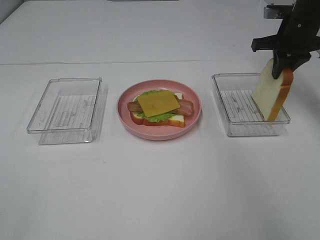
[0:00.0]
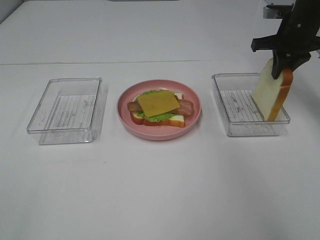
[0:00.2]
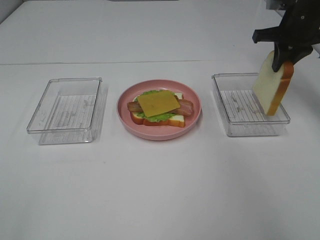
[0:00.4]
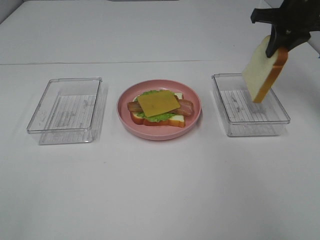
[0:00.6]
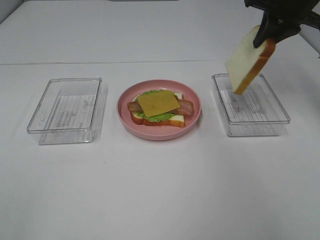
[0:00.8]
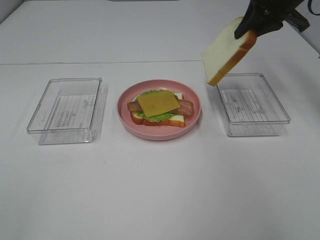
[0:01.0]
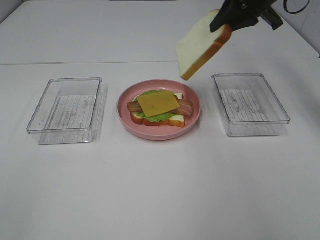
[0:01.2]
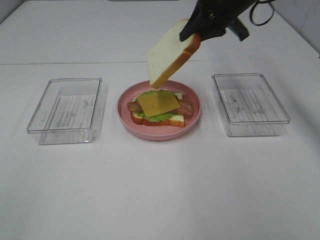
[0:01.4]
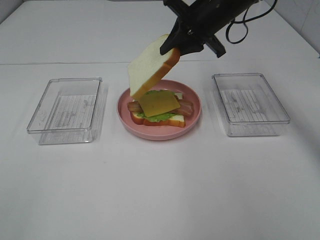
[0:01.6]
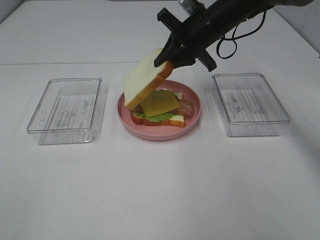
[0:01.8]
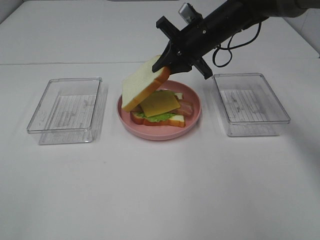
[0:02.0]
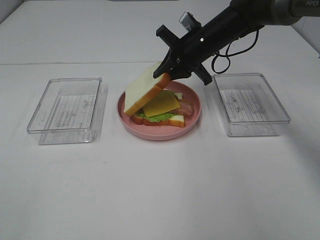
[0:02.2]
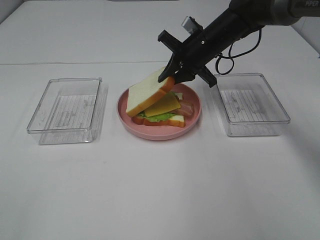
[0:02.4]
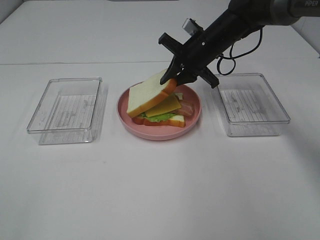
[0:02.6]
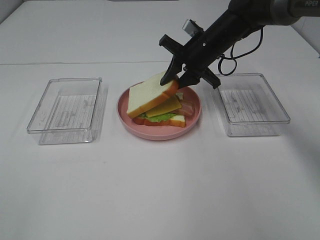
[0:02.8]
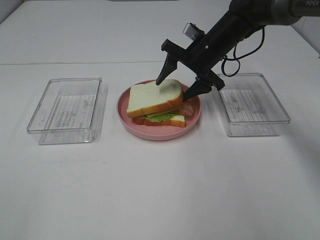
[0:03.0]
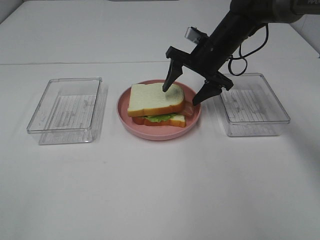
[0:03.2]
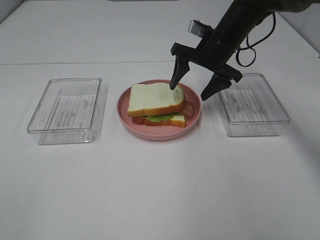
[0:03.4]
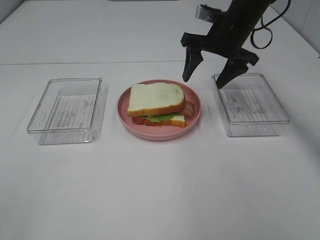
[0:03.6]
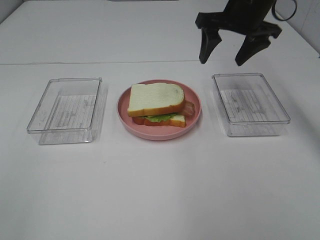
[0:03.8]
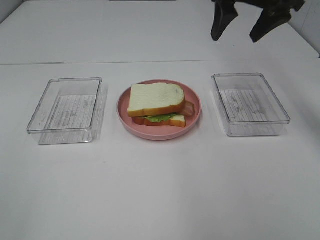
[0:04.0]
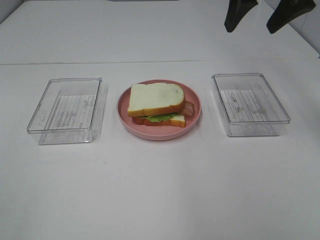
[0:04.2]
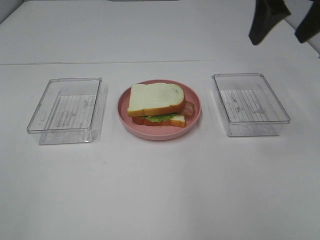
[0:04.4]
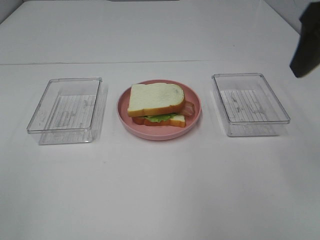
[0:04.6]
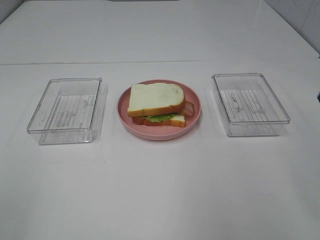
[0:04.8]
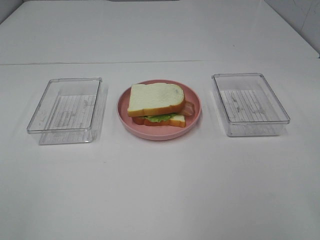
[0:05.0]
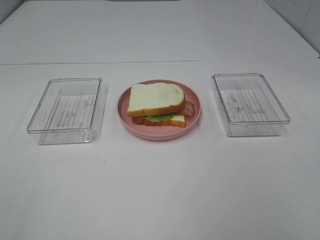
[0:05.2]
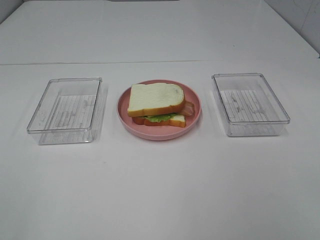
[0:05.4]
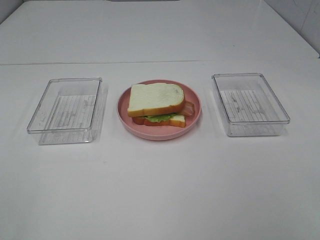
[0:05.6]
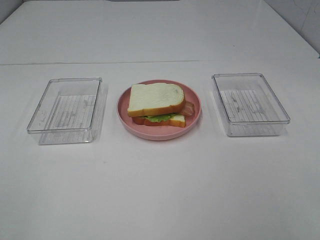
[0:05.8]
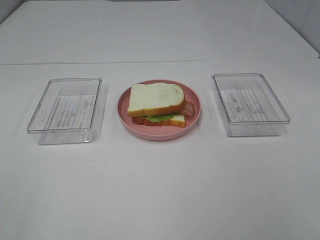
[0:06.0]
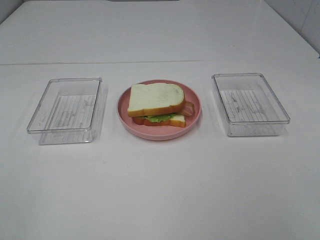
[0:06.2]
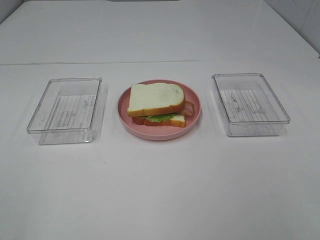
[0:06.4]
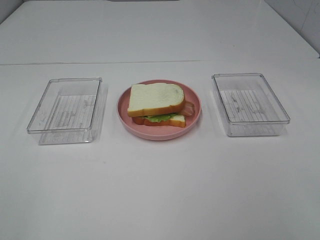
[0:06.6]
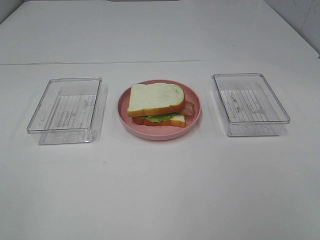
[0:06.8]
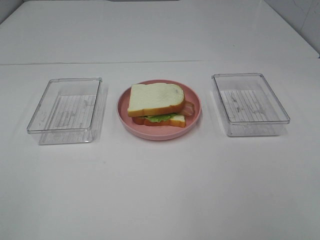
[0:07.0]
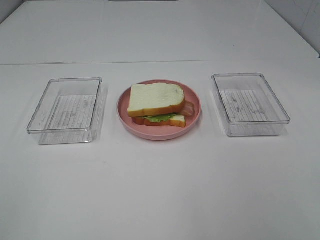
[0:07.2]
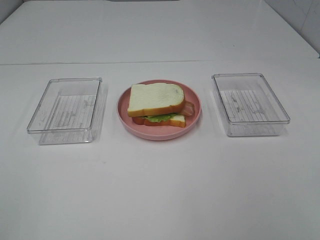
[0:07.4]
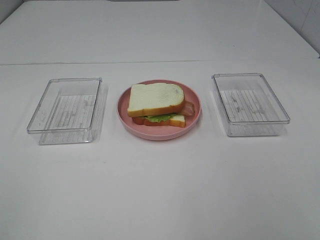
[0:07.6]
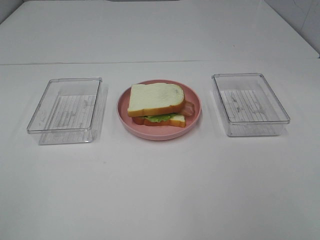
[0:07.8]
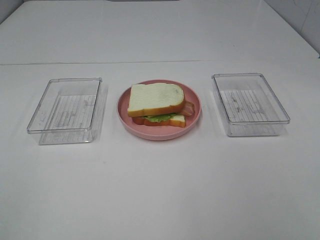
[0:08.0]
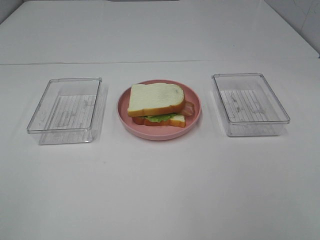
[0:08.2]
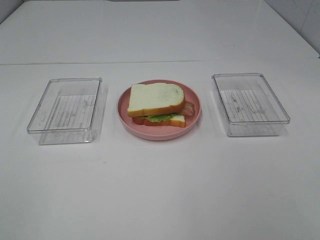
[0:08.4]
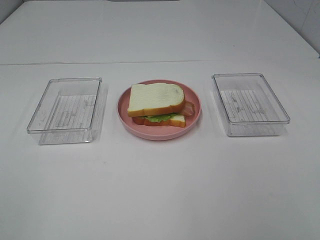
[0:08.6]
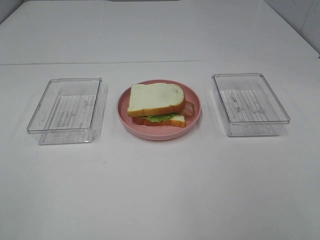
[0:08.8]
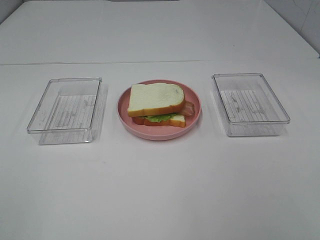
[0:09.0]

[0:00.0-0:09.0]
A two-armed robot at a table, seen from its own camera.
Task of the whole recording: Make sandwiches.
Step, 0:00.4 to 0:03.4: Right hand:place the bread slice on the cheese slice.
0:00.0 to 0:01.6: The right gripper heads to the left, covering roughly 15 cm.
0:01.6 to 0:03.0: The right gripper travels downward by approximately 10 cm, and opens its fingers.
0:03.0 to 0:04.4: The right gripper shifts roughly 25 cm upward, backward and to the right.
0:04.4 to 0:06.0: The right gripper shifts approximately 30 cm backward.
0:07.6 to 0:09.0: Both grippers stay about where they are.

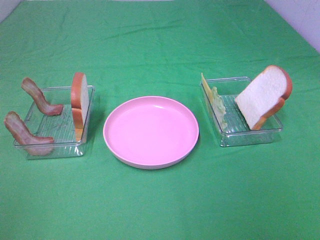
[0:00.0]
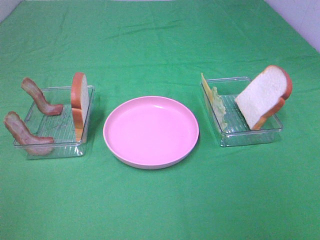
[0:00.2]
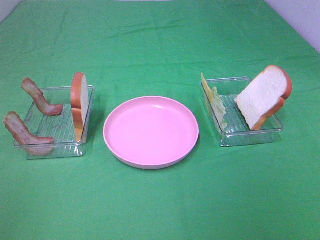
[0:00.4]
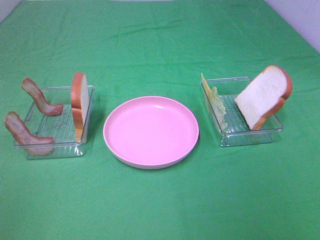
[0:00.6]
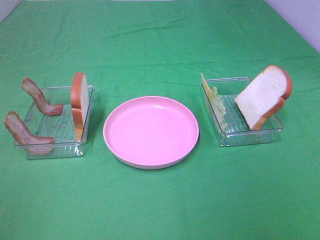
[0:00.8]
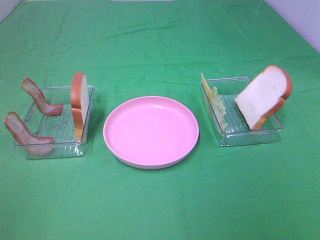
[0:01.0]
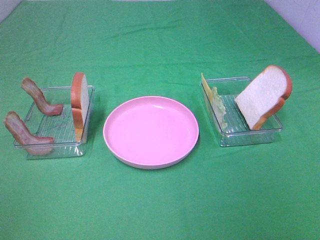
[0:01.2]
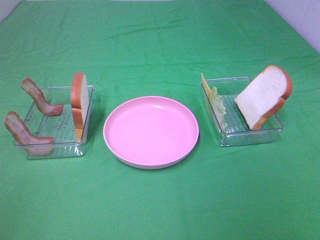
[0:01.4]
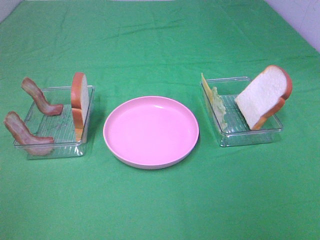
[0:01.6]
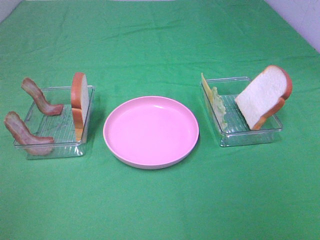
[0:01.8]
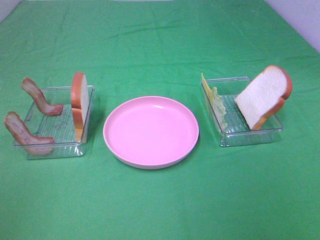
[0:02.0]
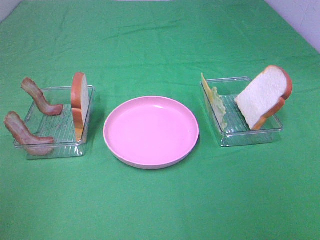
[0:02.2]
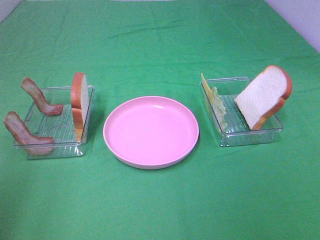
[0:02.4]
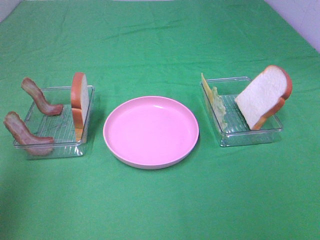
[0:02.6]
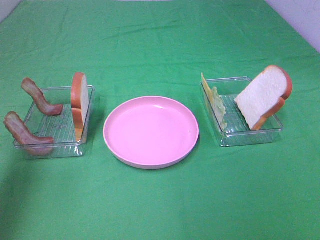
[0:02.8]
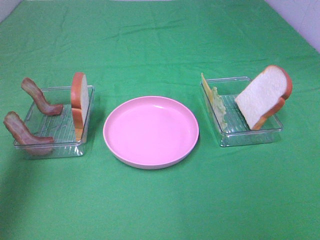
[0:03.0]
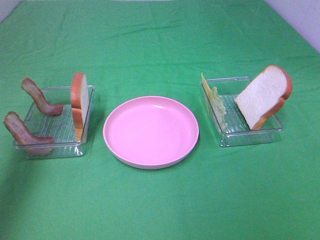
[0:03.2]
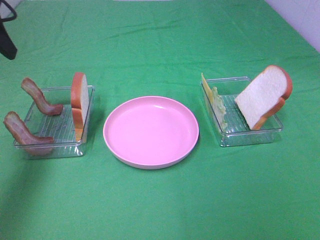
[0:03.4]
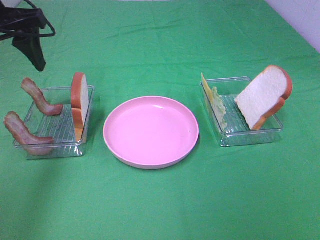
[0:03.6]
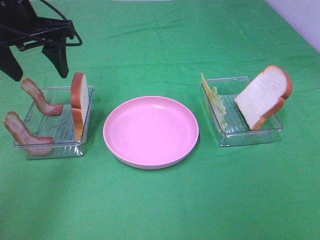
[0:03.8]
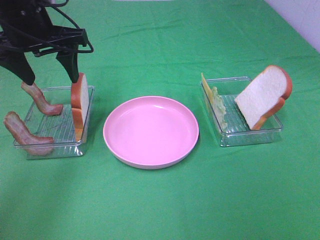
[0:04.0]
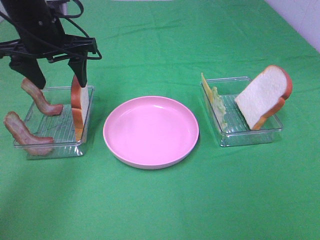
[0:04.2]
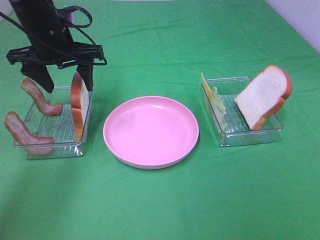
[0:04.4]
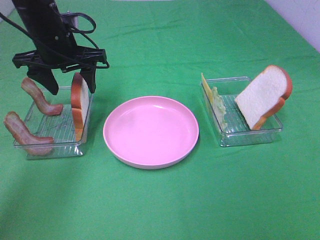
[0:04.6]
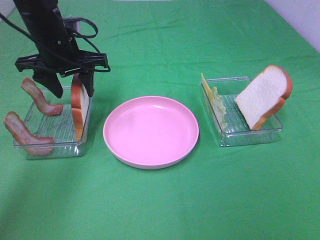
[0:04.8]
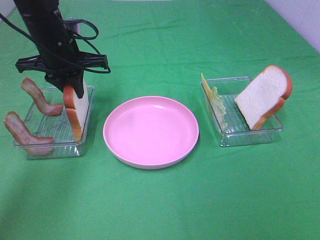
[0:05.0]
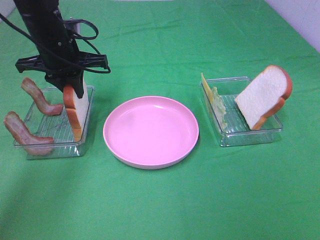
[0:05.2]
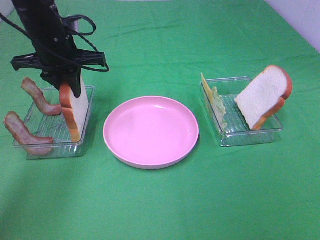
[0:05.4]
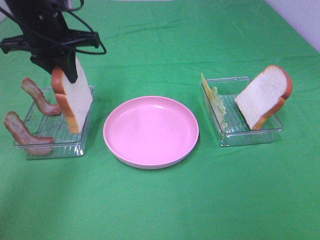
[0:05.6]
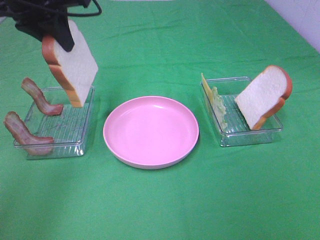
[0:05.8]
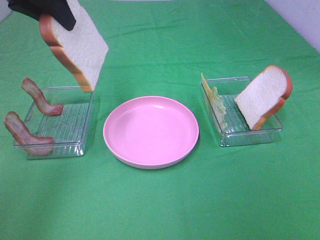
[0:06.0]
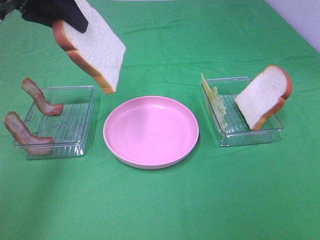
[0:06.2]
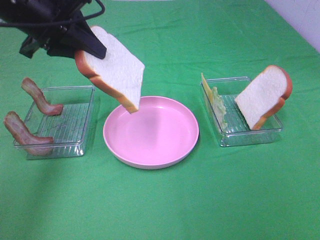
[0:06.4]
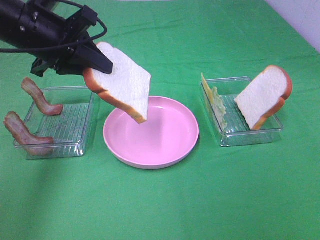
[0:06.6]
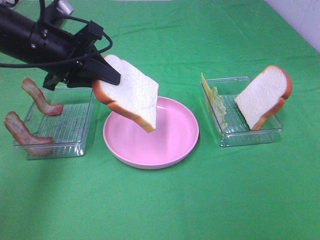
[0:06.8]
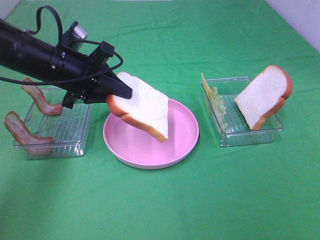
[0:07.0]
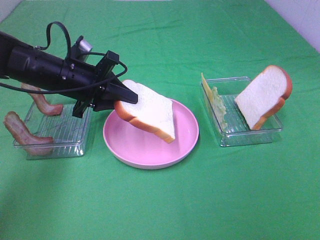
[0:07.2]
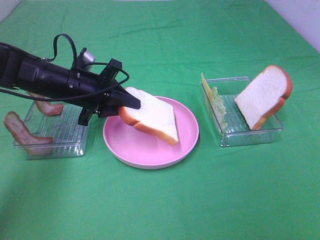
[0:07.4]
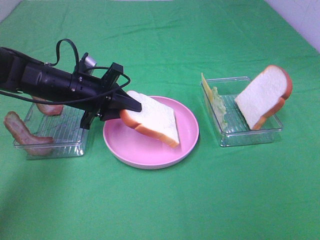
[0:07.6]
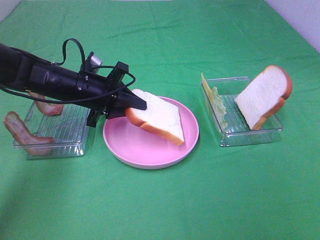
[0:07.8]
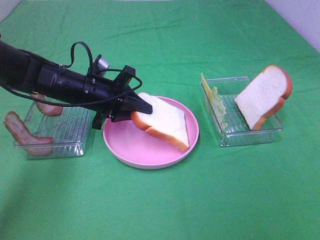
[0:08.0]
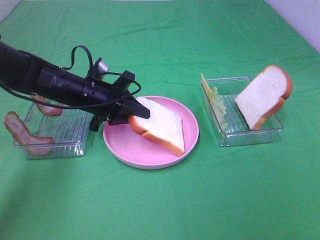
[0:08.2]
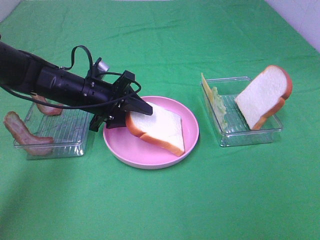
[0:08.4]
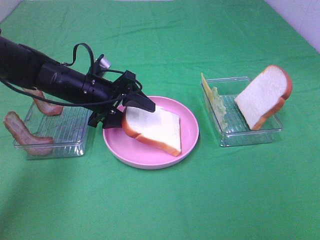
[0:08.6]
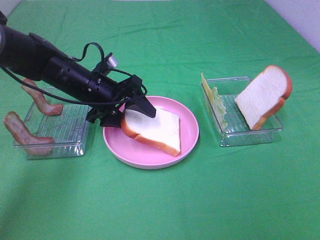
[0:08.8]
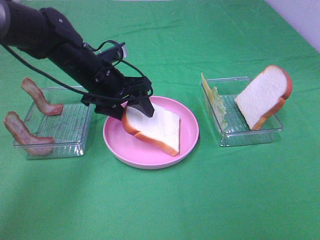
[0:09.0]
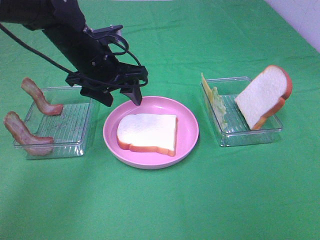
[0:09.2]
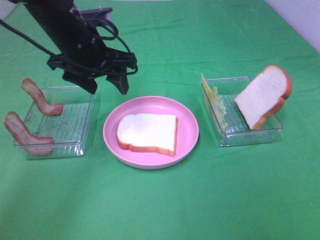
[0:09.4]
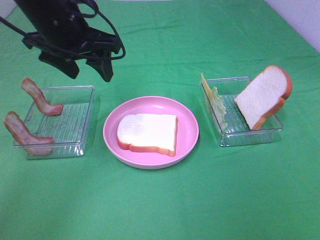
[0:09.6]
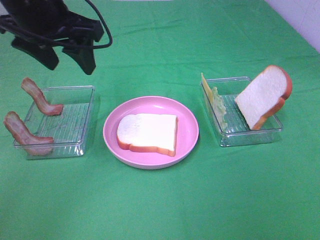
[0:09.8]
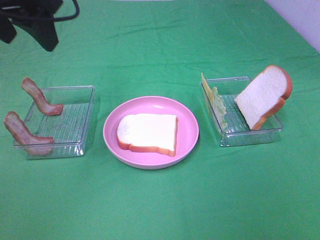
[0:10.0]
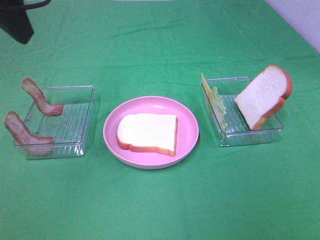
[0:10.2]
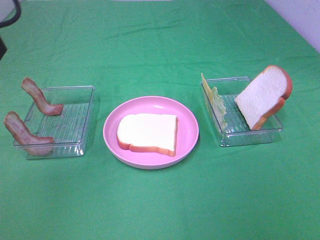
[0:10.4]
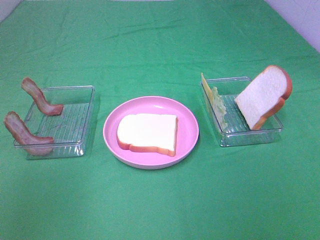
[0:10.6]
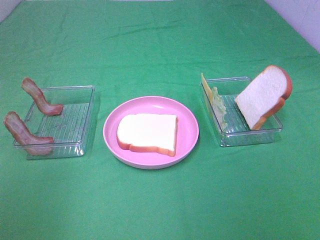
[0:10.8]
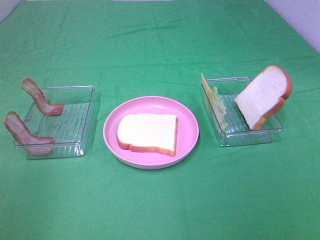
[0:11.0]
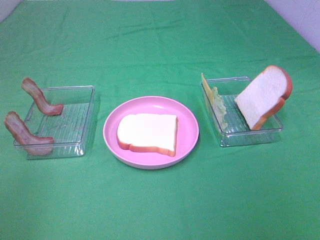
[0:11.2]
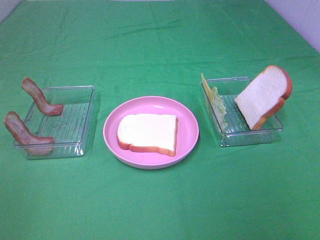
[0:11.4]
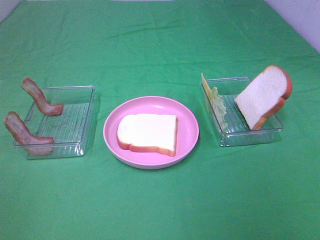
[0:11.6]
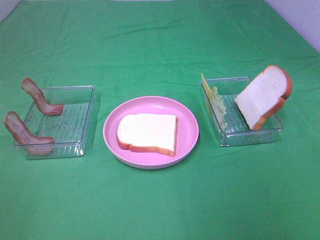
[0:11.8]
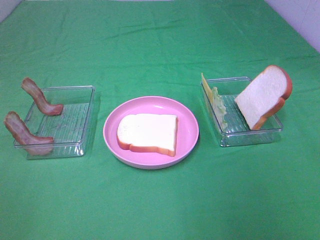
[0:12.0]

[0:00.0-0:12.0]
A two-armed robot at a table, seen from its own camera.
Task of the whole recording: Make sandwiches.
Step, 0:00.0 to 0:05.2: Left hand:grab the bread slice.
Step, 0:05.4 to 0:09.2: Left hand:place the bread slice on the plate.
0:00.0 to 0:01.6: Both grippers stay put.
0:01.6 to 0:03.0: The left gripper goes some 25 cm forward.
0:03.0 to 0:04.4: The left gripper moves forward, downward and to the right, about 25 cm.
0:04.4 to 0:06.0: The left gripper moves upward and backward, roughly 15 cm, and closes.
0:06.0 to 0:07.6: The left gripper is displaced downward by some 25 cm.
0:07.6 to 0:09.0: The left gripper changes place by roughly 5 cm, and opens its fingers.
0:09.0 to 0:10.4: The left gripper shifts some 30 cm upward, backward and to the left.

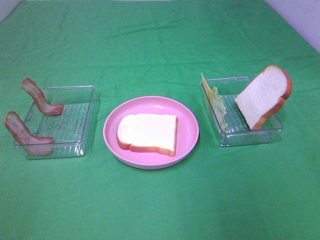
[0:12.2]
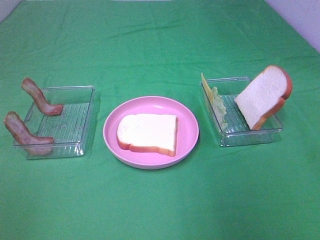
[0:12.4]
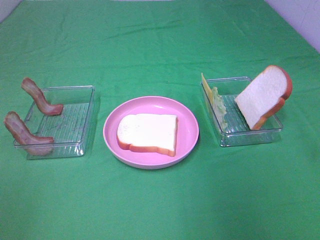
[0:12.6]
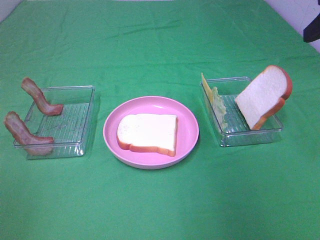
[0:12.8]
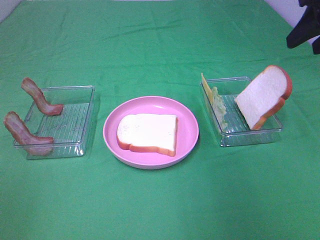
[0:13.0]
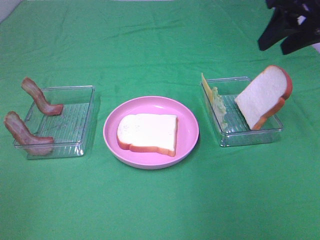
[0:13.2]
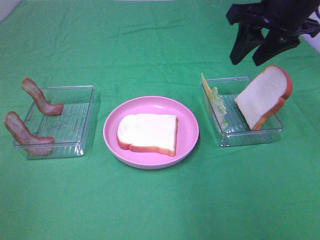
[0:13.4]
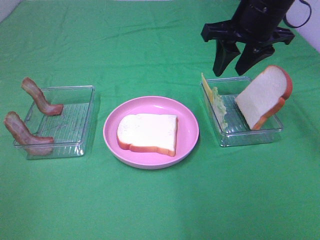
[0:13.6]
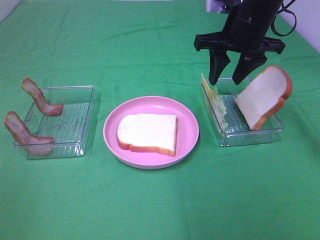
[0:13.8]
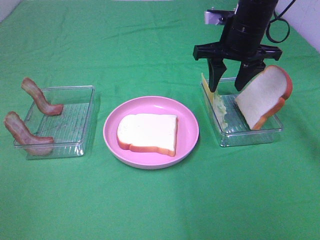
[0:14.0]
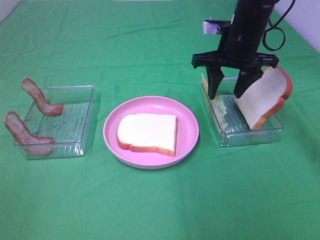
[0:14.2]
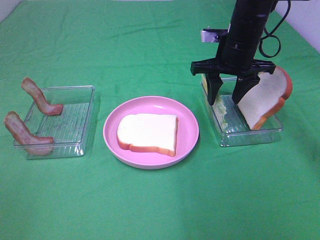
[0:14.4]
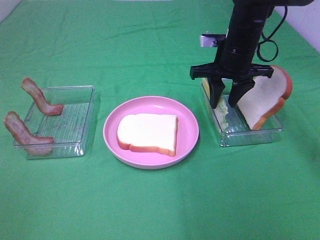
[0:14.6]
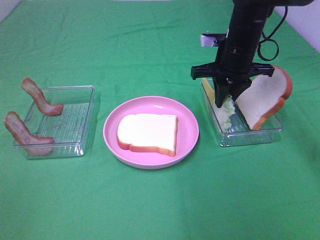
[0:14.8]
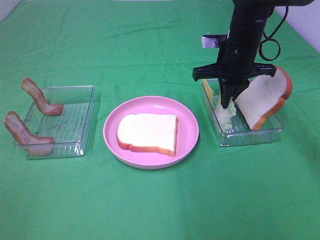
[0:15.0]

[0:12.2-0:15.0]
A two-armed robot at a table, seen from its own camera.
Task of the whole recording: Make sandwiches.
0:12.2 to 0:13.6: The right gripper is displaced forward and to the left by about 30 cm.
0:13.6 to 0:15.0: The right gripper is displaced downward by roughly 10 cm, and closes.
